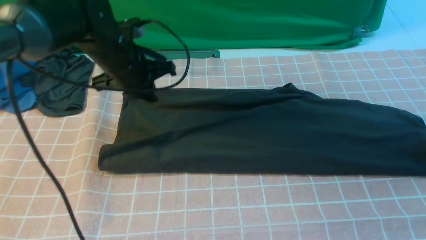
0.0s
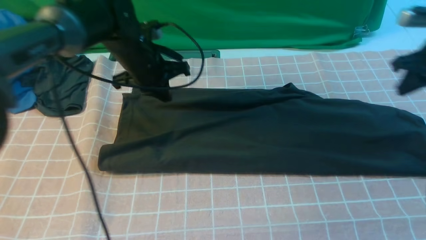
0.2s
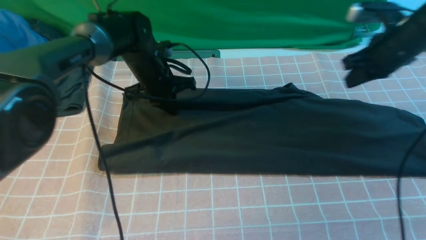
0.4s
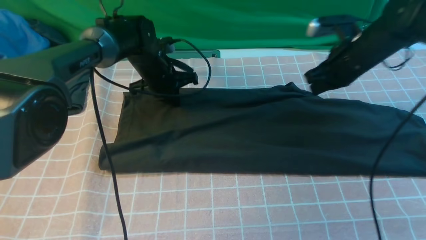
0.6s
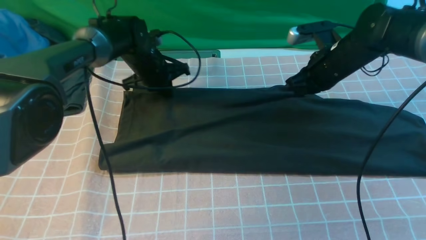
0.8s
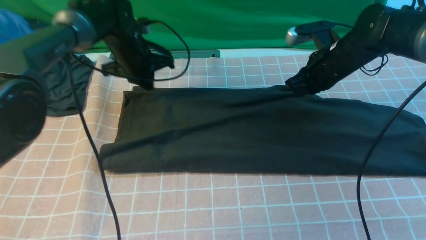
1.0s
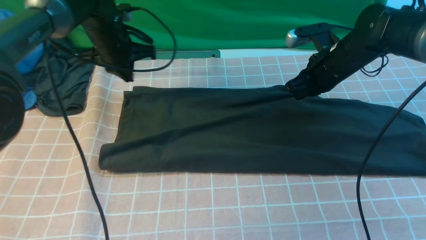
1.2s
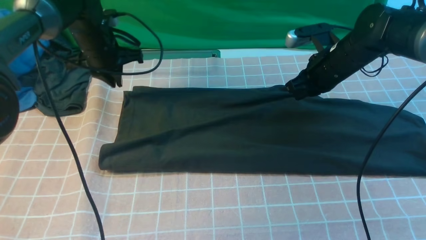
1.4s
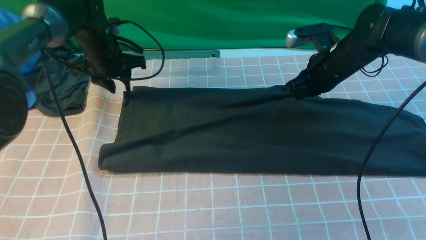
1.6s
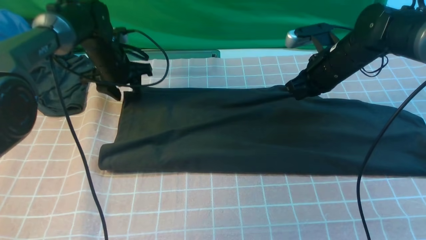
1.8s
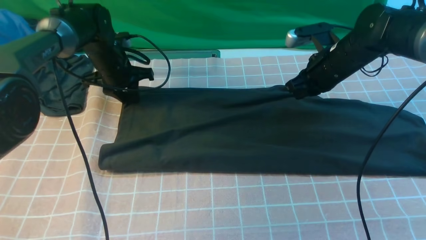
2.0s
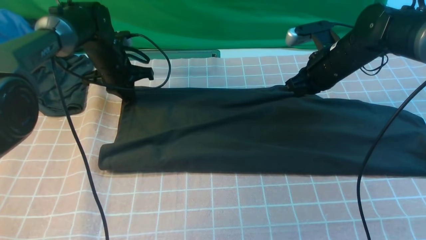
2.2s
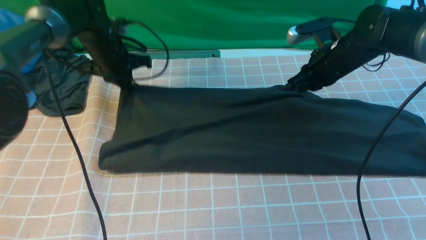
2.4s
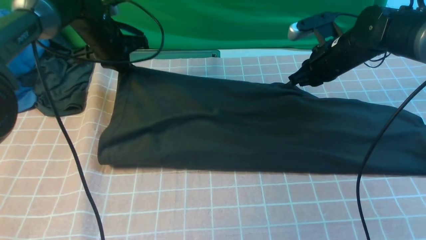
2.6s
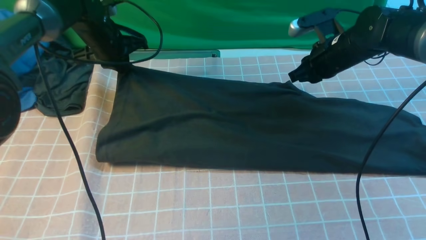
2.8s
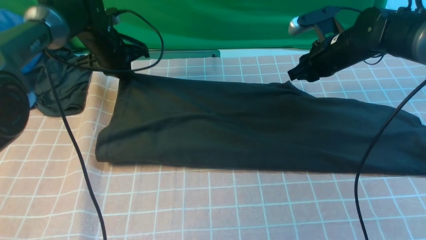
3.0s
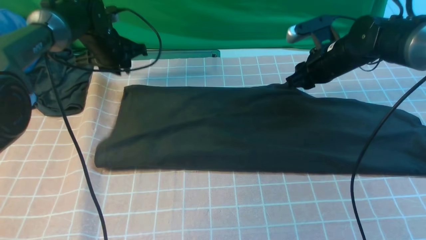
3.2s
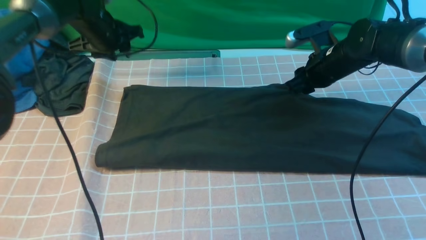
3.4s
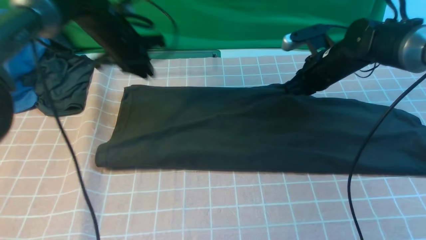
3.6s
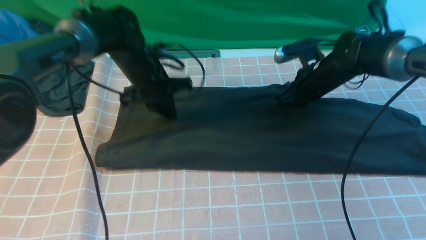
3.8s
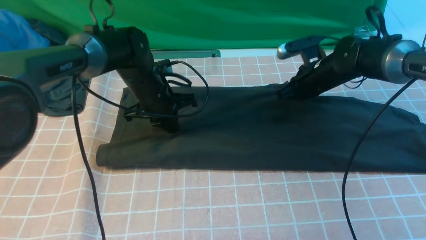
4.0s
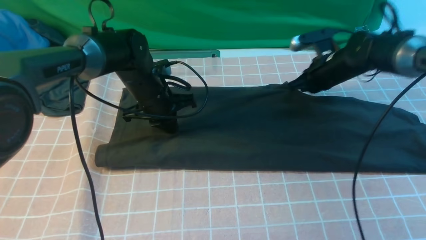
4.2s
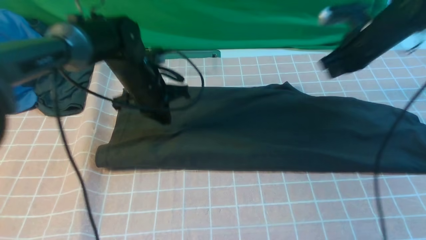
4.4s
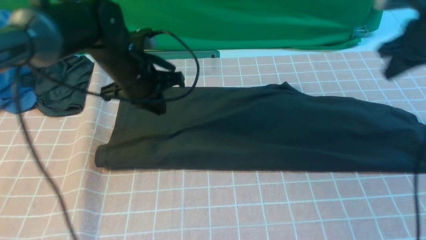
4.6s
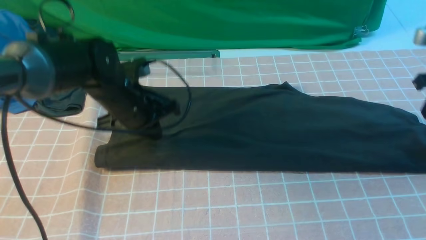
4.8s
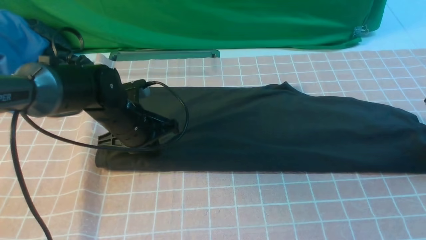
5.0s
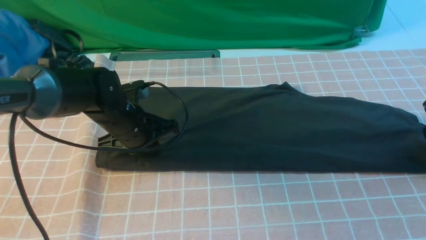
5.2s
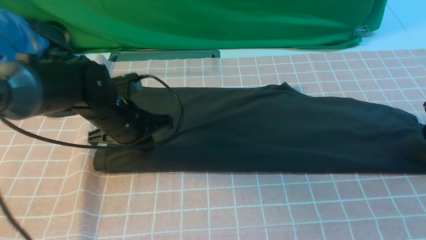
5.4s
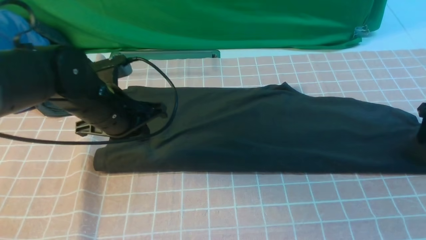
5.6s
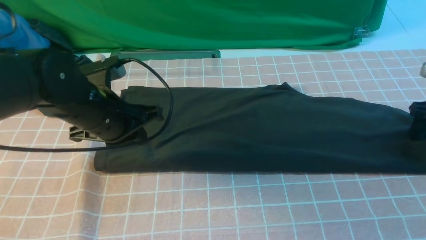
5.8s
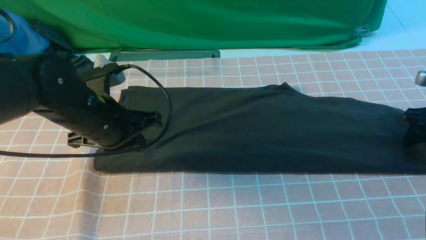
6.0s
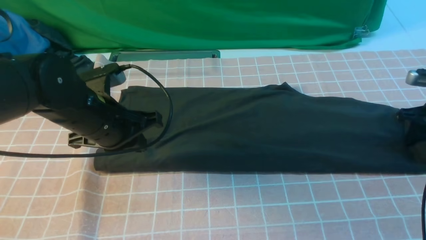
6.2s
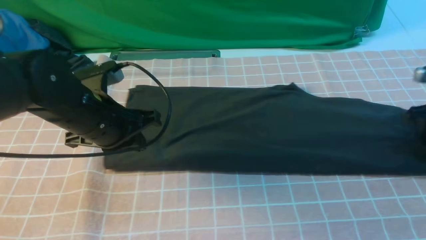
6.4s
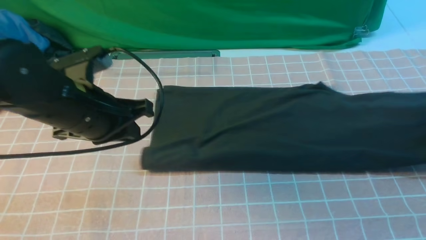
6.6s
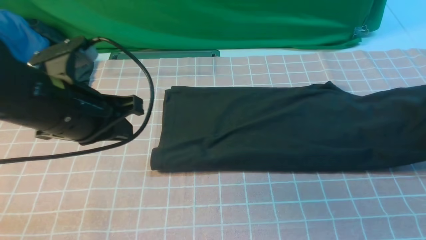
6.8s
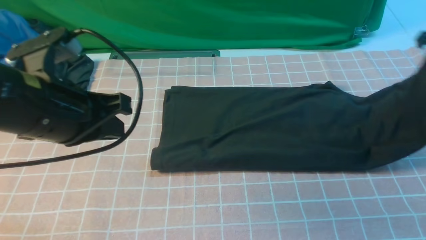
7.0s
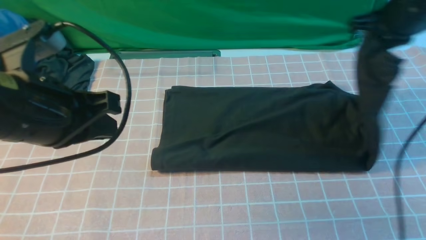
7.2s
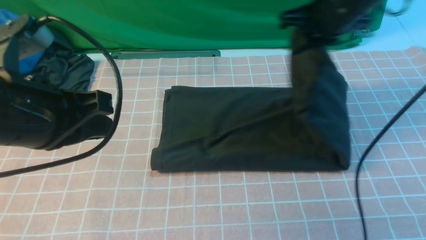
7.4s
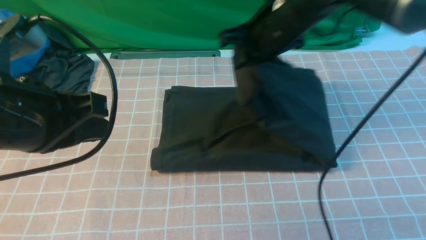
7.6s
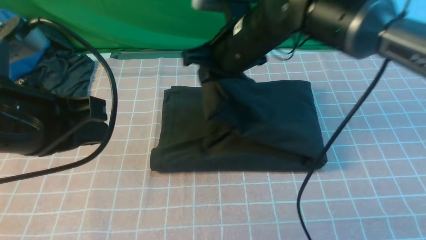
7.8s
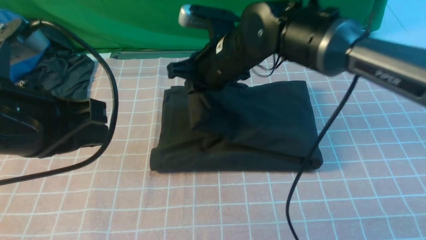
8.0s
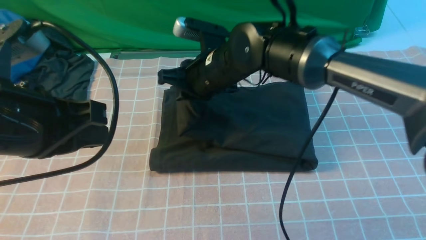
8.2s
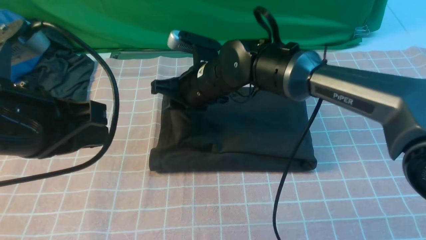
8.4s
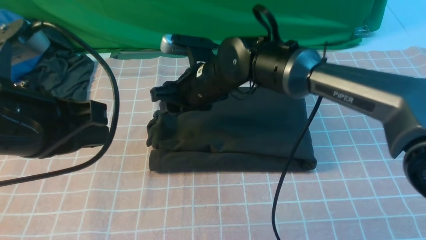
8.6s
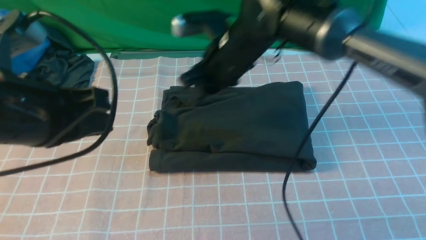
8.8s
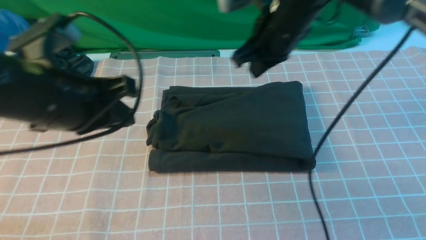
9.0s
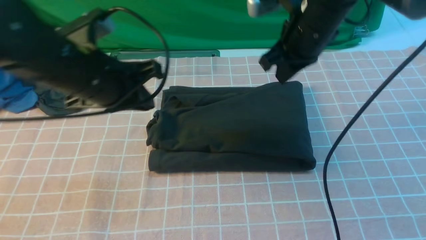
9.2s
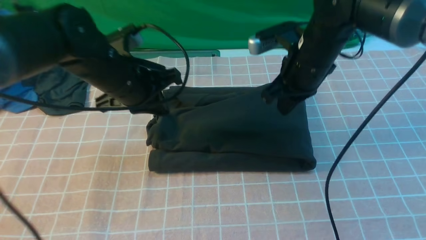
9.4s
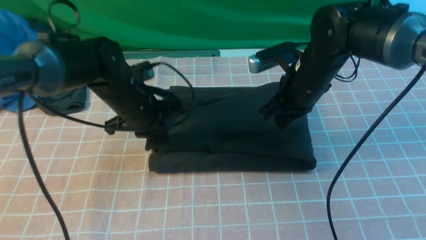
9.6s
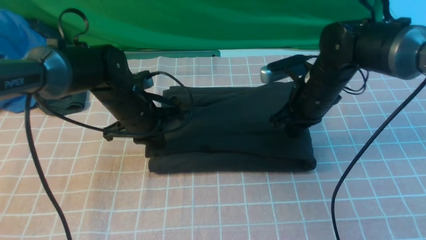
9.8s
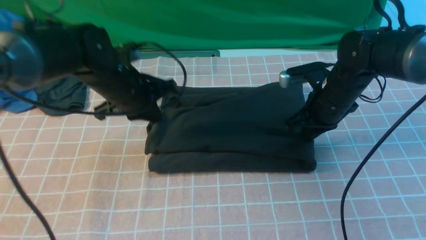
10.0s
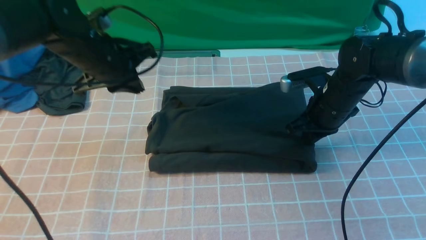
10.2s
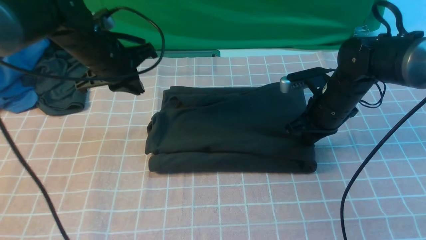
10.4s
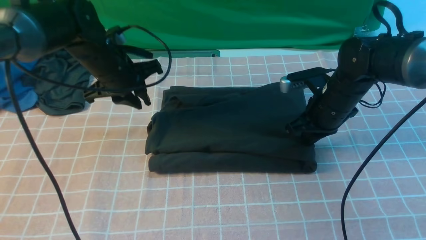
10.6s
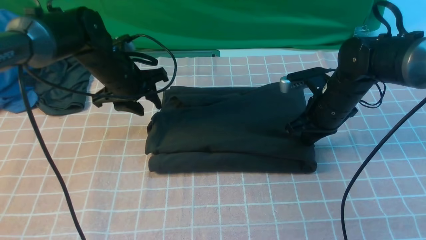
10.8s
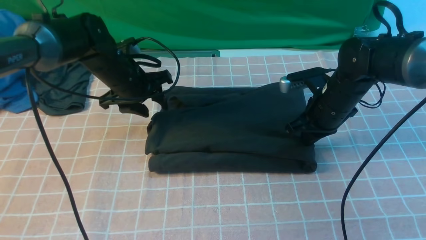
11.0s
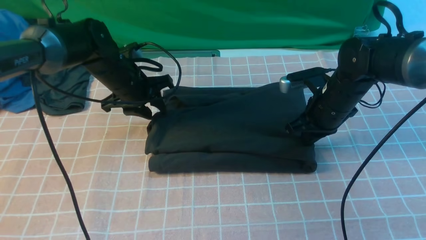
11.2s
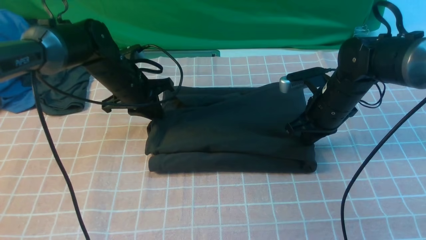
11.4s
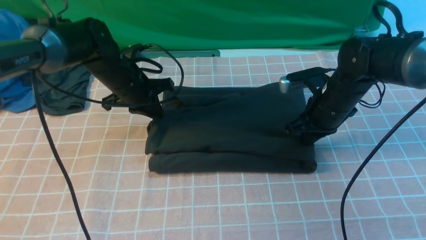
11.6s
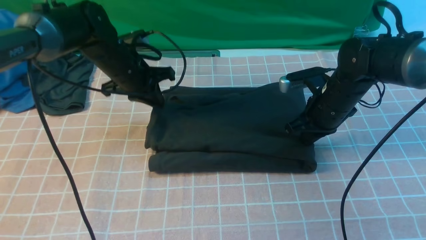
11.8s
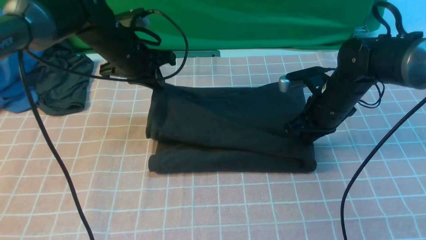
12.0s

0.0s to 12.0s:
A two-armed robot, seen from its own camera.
Step, 0.0s to 5.8s: use the right arm to clamp the right edge of the fabric.
Step, 6.0s to 8.8s: use the right arm to drag the right edge of the fabric to the left and folds it over the left edge.
0.0s to 1.6s: The right gripper is displaced to the left by roughly 20 cm; the left gripper goes roughly 10 cm forward and to the left, and opens up.
1.6s to 3.0s: The right gripper opens up, while the left gripper closes its fingers.
3.0s to 4.4s: The left gripper goes about 15 cm backward and to the right. Meanwhile the right gripper travels to the right by roughly 10 cm, and closes up.
4.4s to 6.0s: The right gripper is displaced to the right, downward and backward by roughly 15 cm, and opens up. Meanwhile the left gripper heads backward, covering roughly 10 cm.
6.0s to 7.6s: The right gripper is displaced to the left and upward by approximately 35 cm, and closes; the left gripper heads upward and backward, covering about 15 cm.
7.6s to 9.0s: The left gripper travels forward by roughly 5 cm; the right gripper travels to the left and back again, approximately 10 cm each way, and opens, then closes again.
9.0s to 10.4s: The left gripper travels forward and downward by approximately 20 cm, while the right gripper is displaced downward and to the right by roughly 15 cm.
10.4s to 12.0s: The left gripper opens, then closes once more.

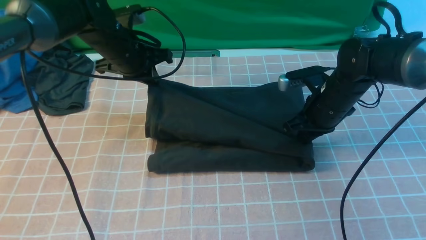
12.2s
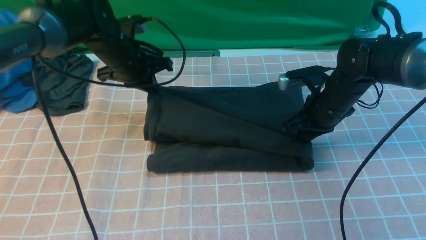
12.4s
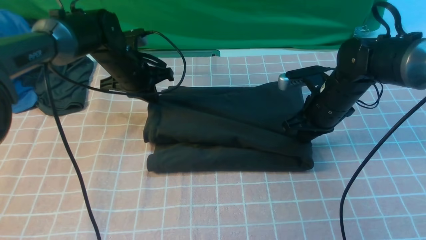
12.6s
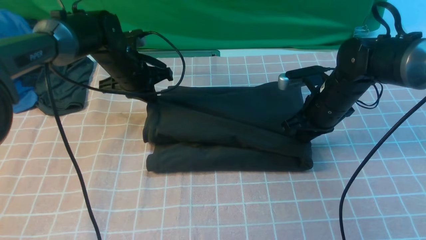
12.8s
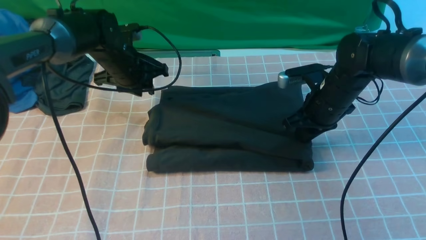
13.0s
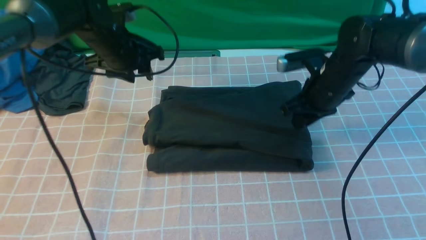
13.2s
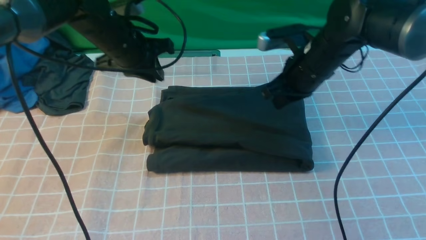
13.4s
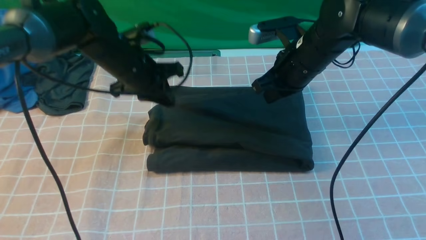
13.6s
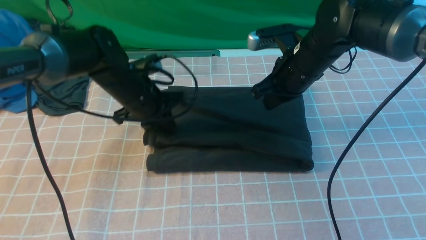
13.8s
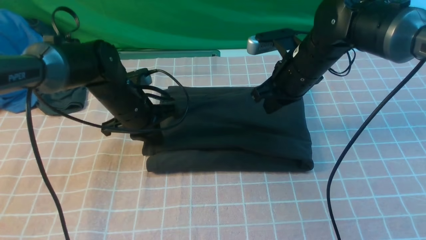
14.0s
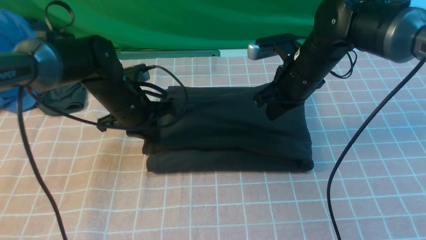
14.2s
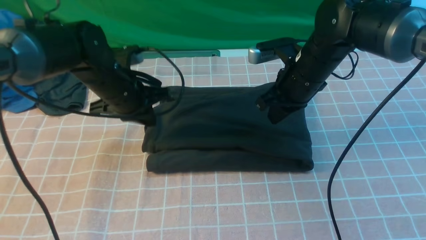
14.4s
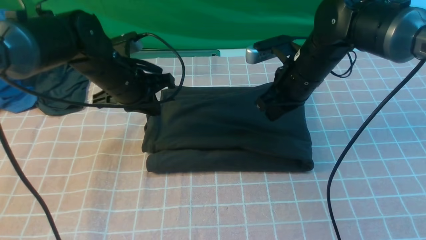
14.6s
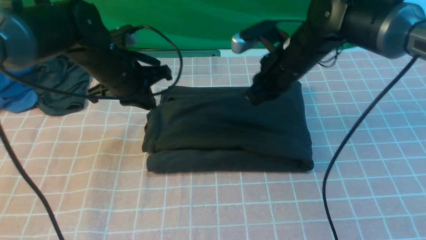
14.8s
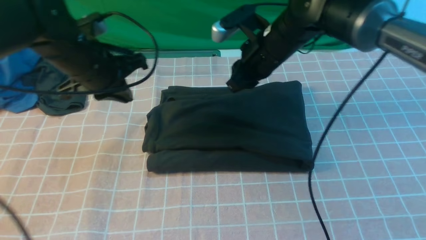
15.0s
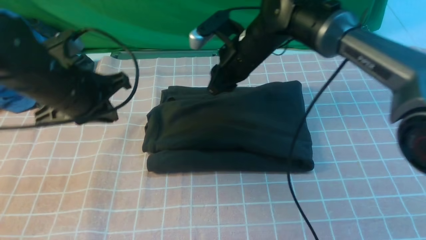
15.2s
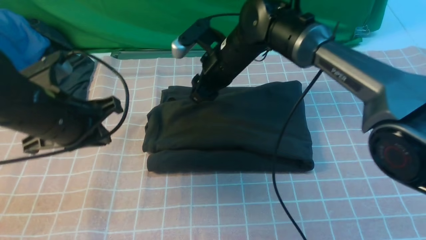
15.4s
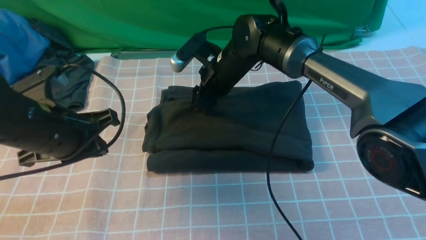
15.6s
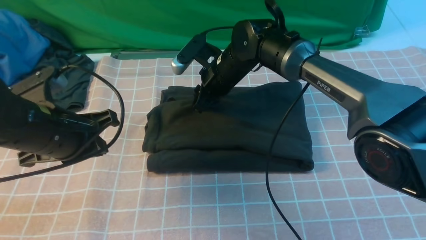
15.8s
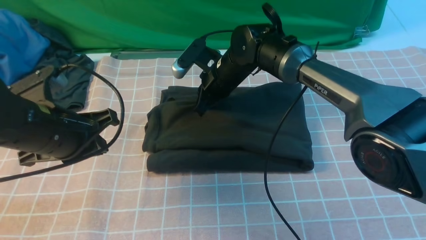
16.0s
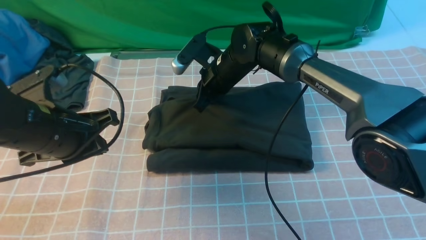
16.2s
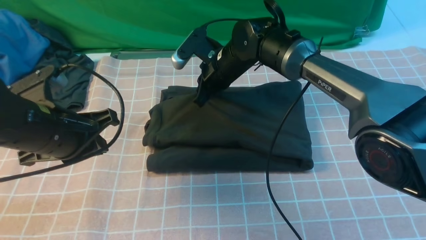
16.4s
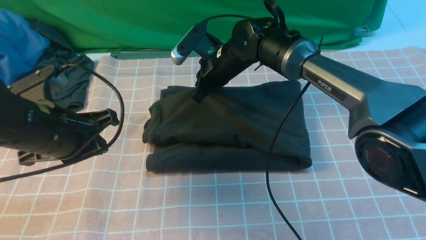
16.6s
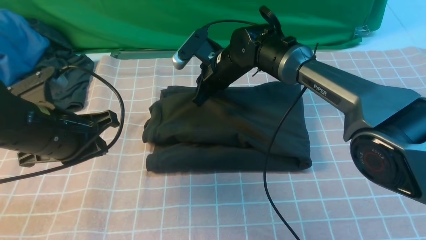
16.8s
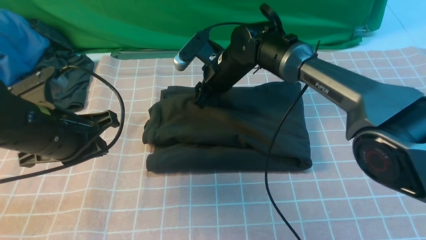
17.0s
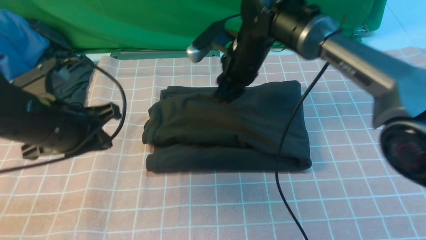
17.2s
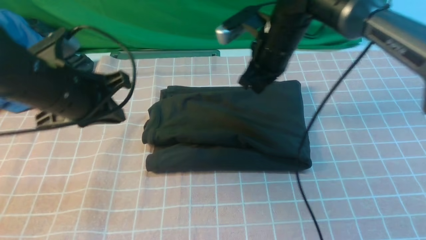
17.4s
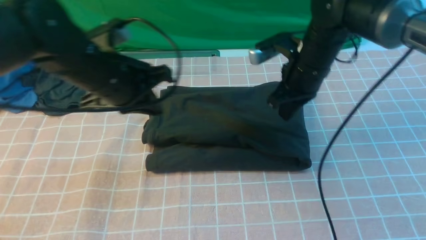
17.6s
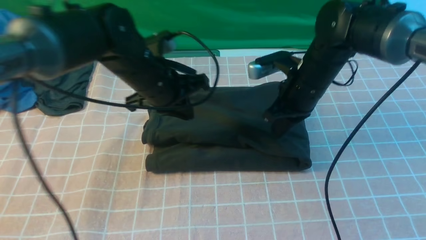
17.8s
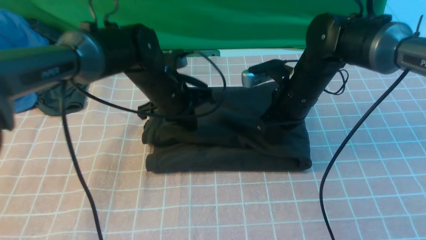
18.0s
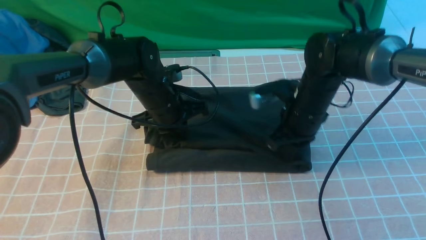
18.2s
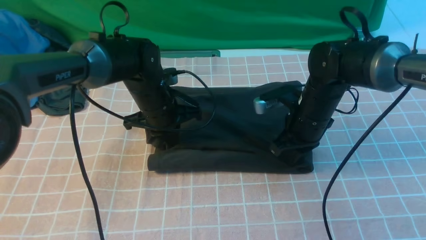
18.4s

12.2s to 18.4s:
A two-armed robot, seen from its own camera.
12.2s to 13.8s: The left gripper travels backward by approximately 5 cm, and opens, then closes once more, while the right gripper moves upward and to the left, approximately 10 cm.
13.8s to 15.4s: The left gripper moves backward, upward and to the left, some 15 cm, while the right gripper heads to the left, covering some 10 cm, and opens.
15.4s to 16.8s: The right gripper closes up.
16.8s to 18.4s: The right gripper is displaced to the right and backward by roughly 15 cm, and closes up; the left gripper shifts some 20 cm forward, to the right and downward.
